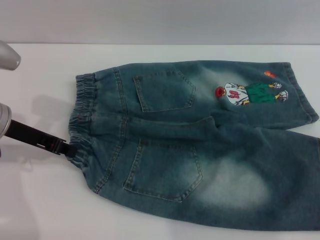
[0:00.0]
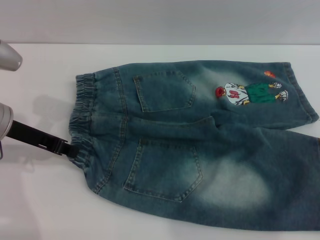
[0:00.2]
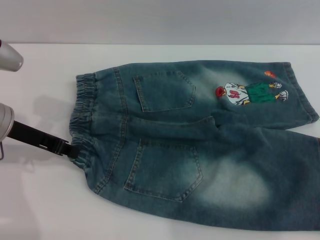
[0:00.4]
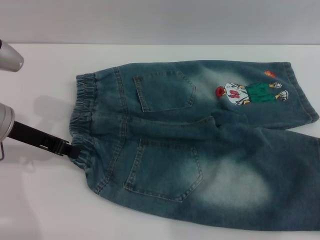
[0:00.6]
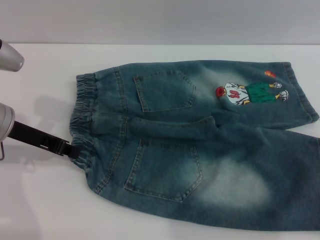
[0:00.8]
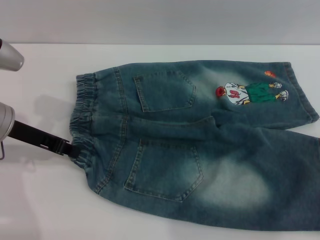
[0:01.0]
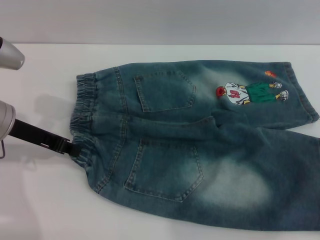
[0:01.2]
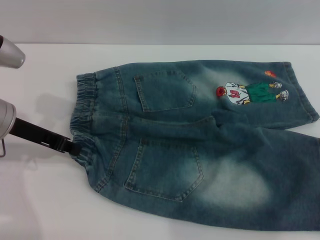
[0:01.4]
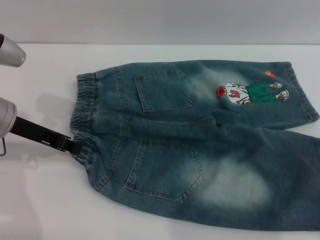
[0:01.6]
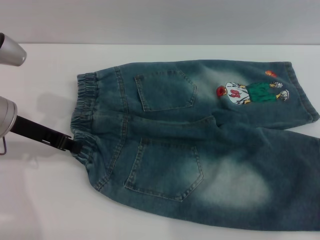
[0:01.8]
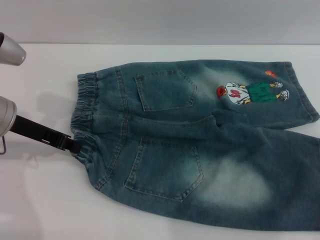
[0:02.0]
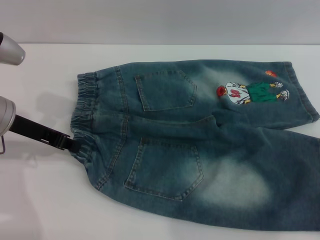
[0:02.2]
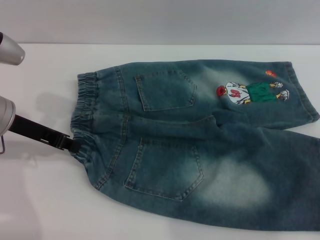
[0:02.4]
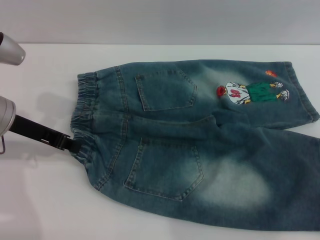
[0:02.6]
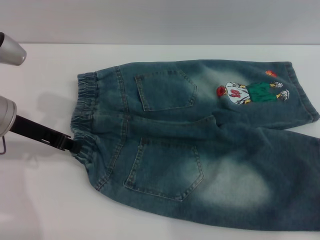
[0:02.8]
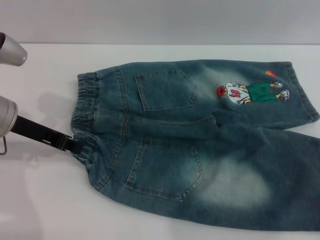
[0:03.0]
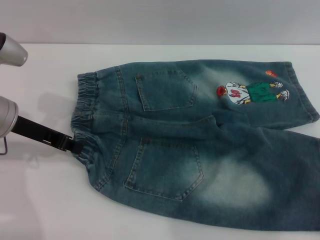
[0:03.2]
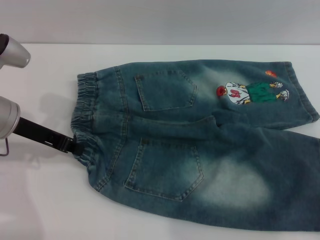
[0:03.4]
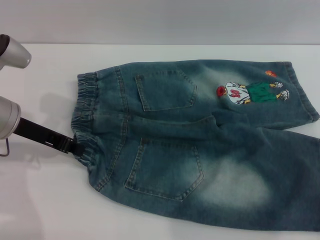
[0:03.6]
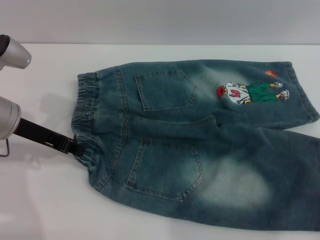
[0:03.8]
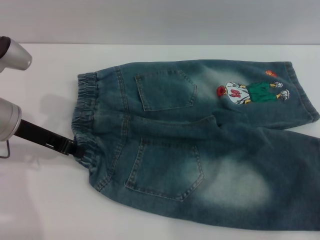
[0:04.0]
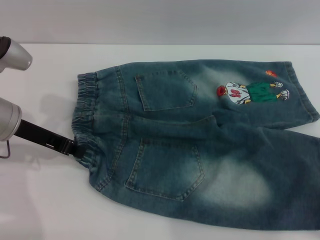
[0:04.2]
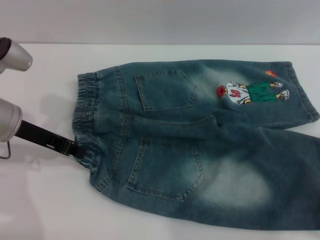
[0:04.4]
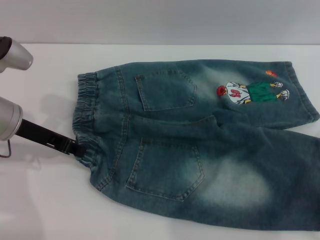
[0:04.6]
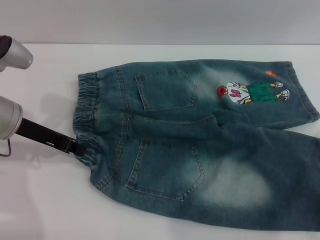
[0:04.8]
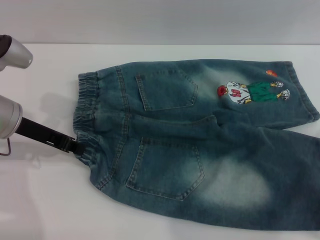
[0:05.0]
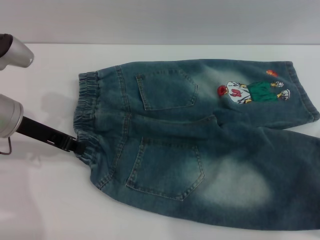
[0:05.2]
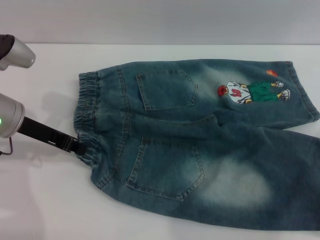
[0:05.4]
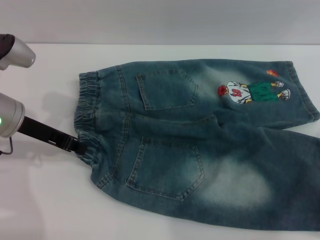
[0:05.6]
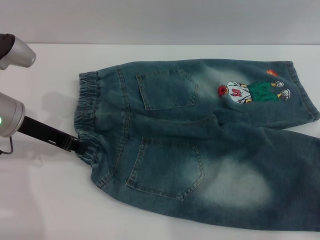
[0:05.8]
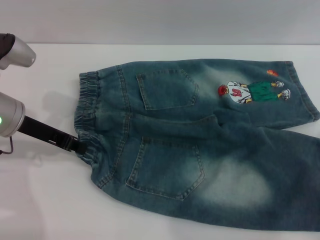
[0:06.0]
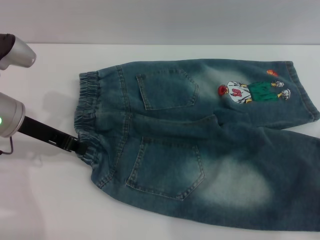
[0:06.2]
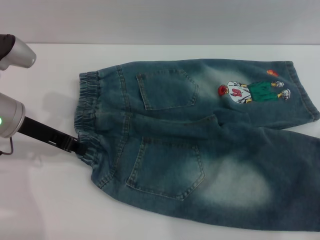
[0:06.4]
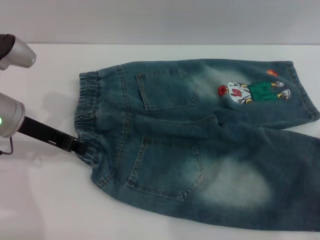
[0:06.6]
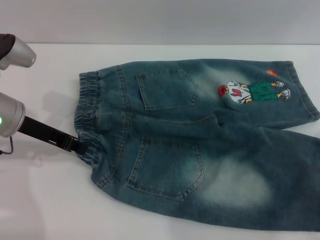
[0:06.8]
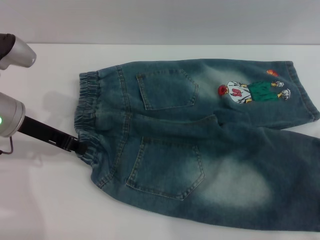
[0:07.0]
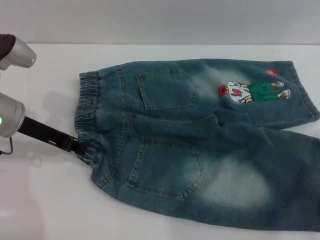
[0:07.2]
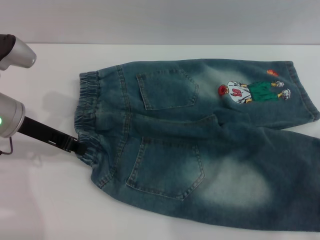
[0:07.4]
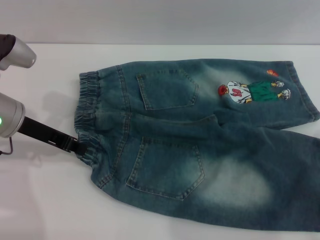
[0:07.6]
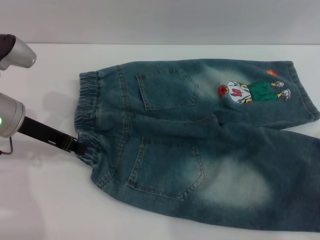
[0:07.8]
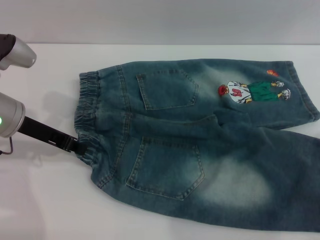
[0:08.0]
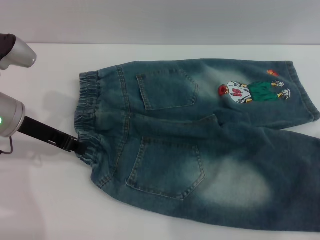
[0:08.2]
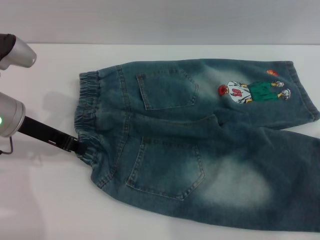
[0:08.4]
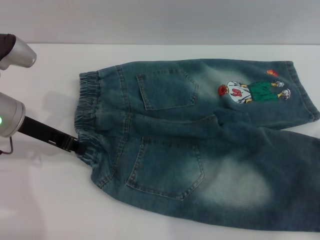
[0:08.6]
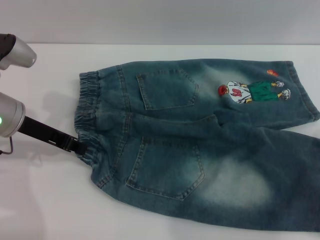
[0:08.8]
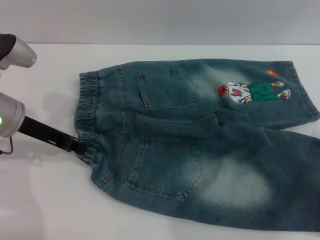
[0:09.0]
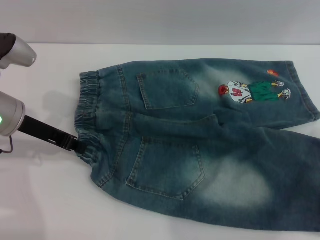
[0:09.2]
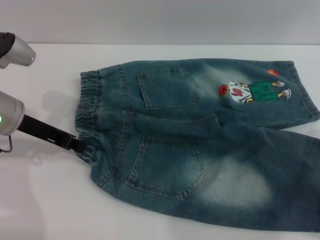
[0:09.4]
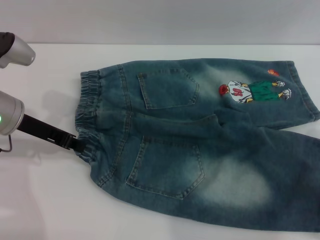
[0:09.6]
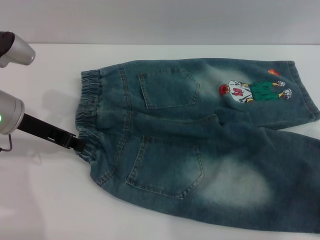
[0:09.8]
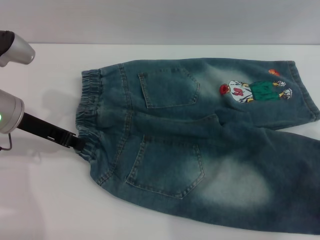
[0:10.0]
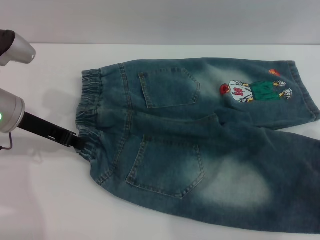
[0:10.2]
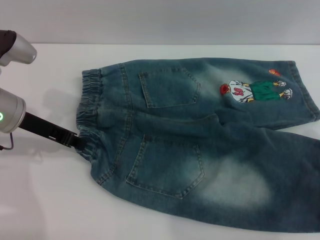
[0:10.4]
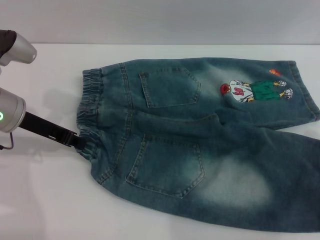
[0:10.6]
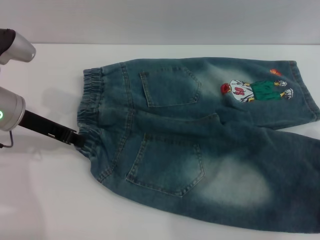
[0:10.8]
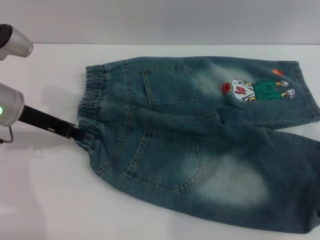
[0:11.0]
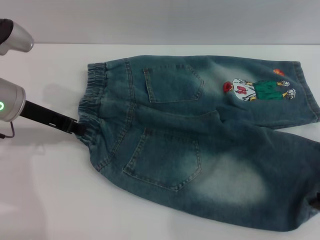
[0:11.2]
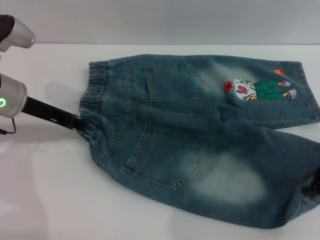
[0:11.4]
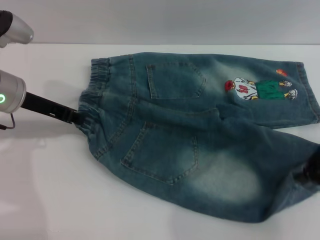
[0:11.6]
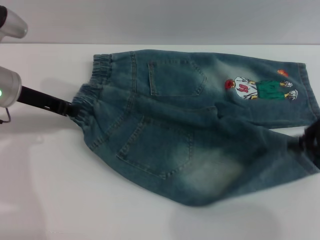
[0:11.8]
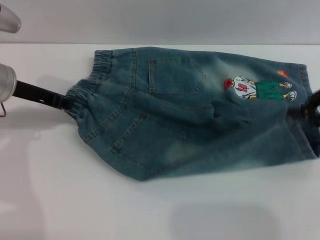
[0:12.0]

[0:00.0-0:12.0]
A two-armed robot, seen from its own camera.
0:00.0 to 0:04.4: The grippers stay close to where they were, moving slightly.
0:04.4 to 0:07.6: Both grippers stay about where they are.
0:07.6 to 0:09.0: Neither gripper changes place.
0:09.0 to 0:10.4: The right gripper closes up.
0:10.4 to 0:12.0: The right gripper goes roughly 5 cm upward.

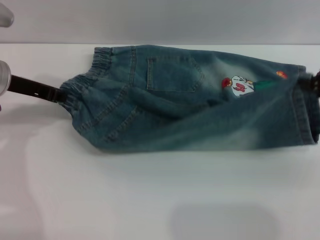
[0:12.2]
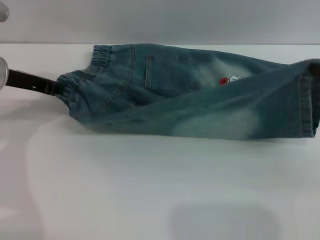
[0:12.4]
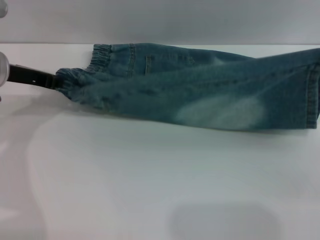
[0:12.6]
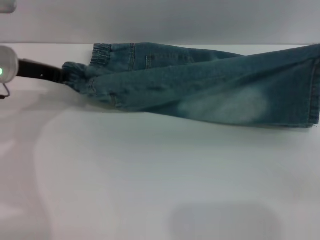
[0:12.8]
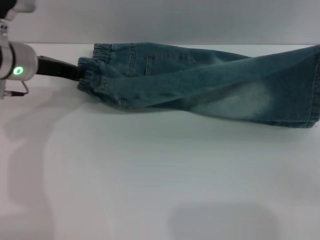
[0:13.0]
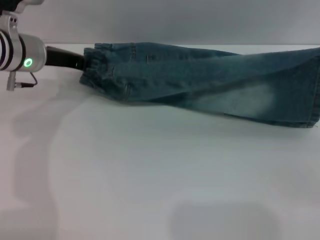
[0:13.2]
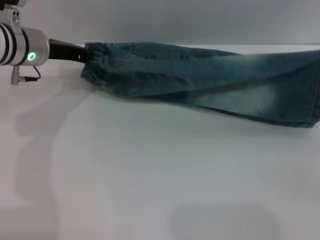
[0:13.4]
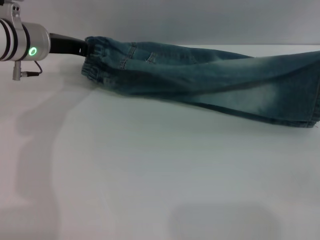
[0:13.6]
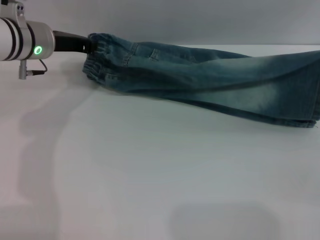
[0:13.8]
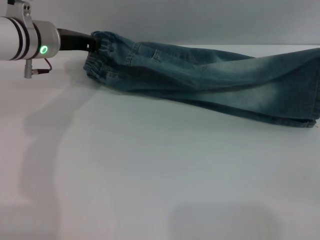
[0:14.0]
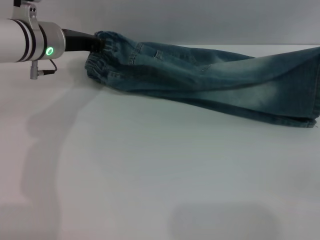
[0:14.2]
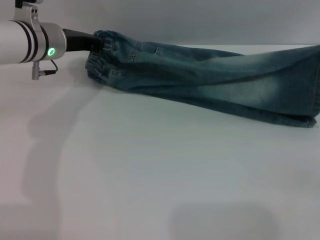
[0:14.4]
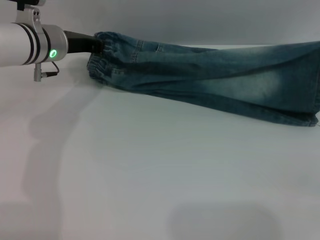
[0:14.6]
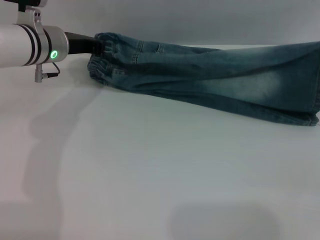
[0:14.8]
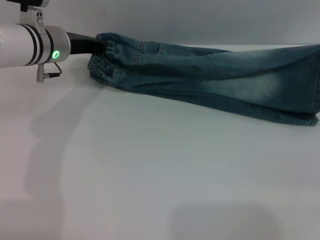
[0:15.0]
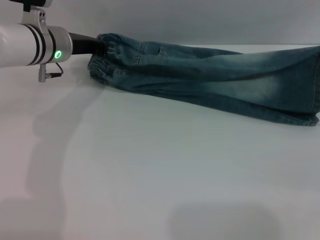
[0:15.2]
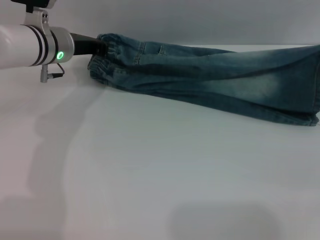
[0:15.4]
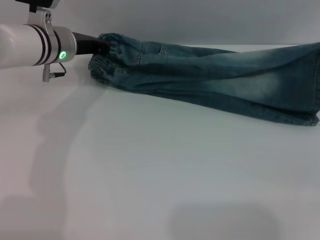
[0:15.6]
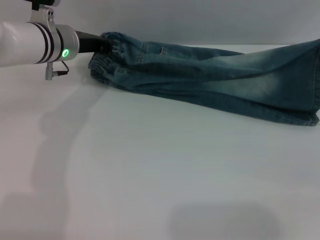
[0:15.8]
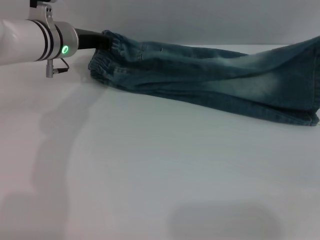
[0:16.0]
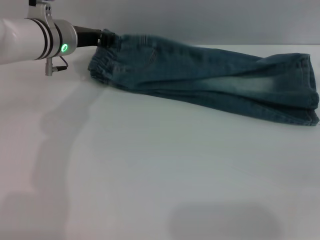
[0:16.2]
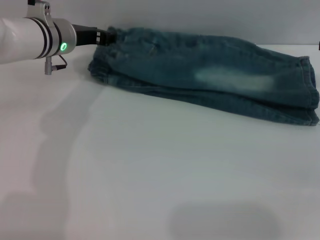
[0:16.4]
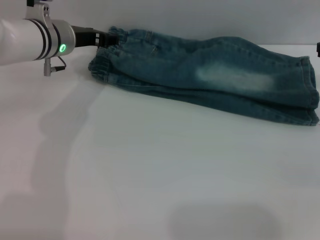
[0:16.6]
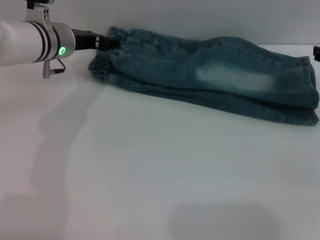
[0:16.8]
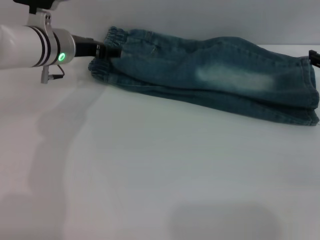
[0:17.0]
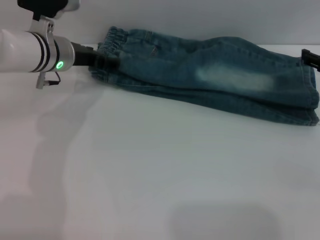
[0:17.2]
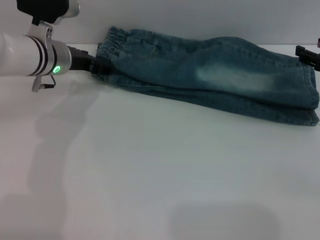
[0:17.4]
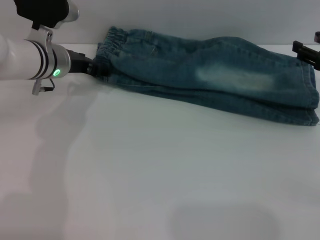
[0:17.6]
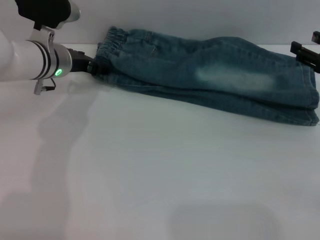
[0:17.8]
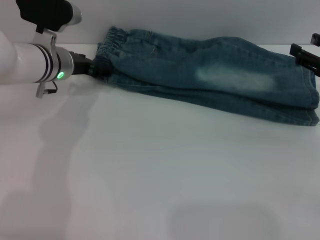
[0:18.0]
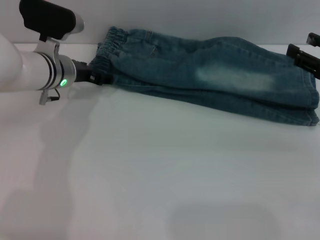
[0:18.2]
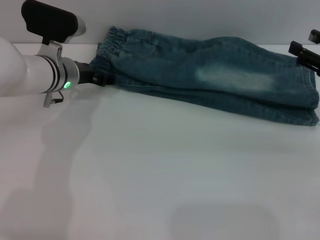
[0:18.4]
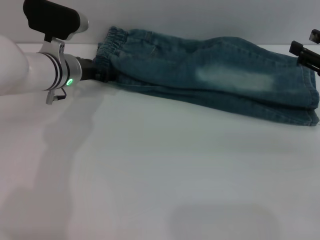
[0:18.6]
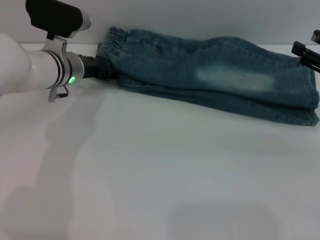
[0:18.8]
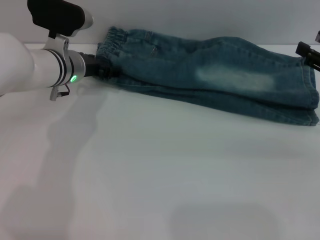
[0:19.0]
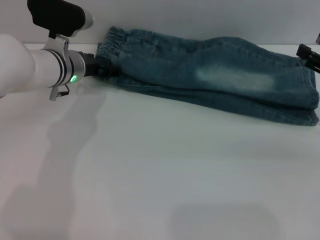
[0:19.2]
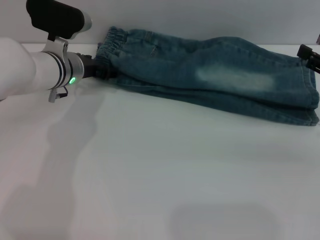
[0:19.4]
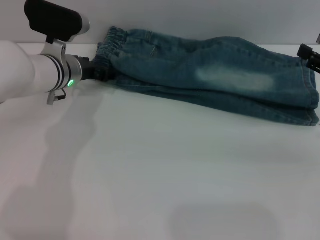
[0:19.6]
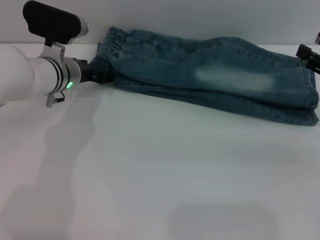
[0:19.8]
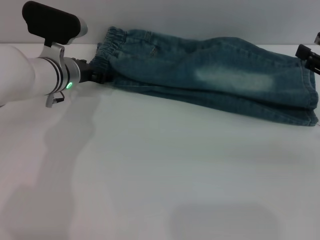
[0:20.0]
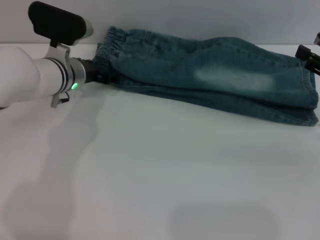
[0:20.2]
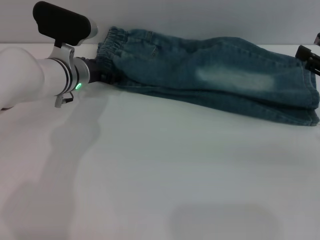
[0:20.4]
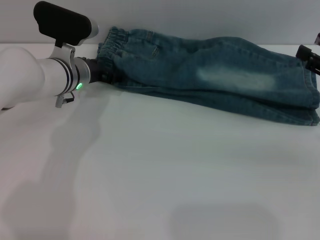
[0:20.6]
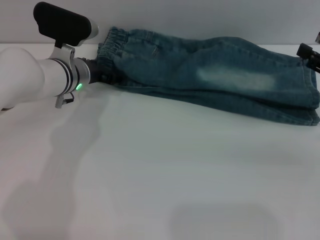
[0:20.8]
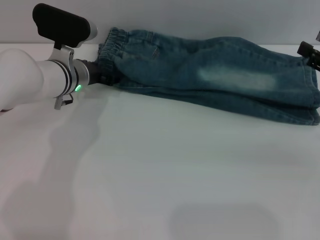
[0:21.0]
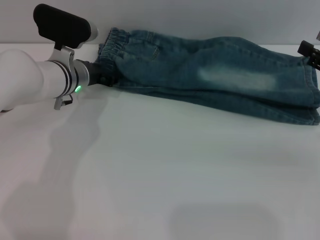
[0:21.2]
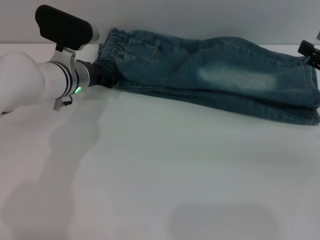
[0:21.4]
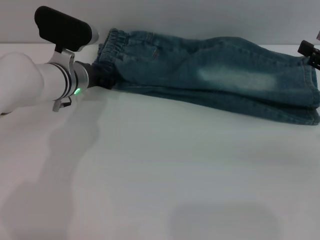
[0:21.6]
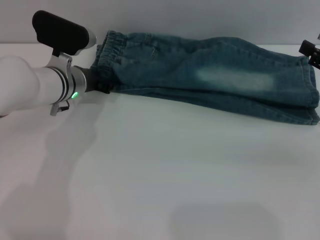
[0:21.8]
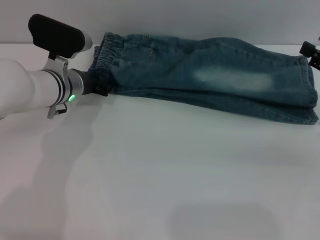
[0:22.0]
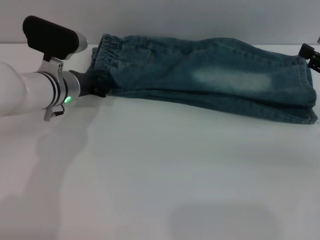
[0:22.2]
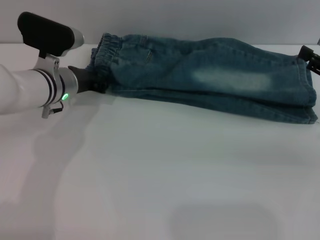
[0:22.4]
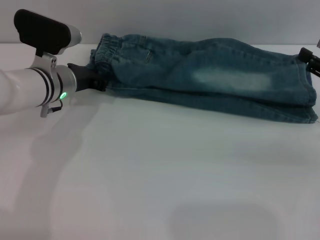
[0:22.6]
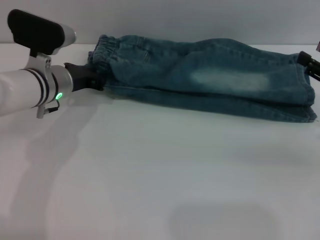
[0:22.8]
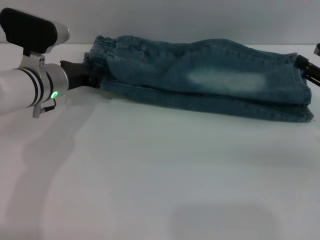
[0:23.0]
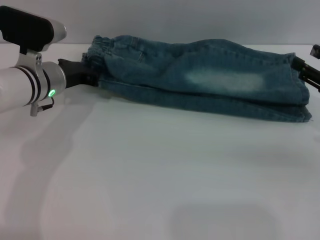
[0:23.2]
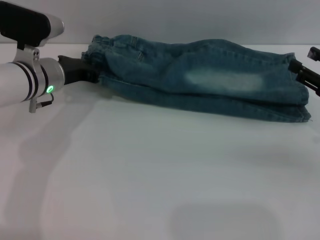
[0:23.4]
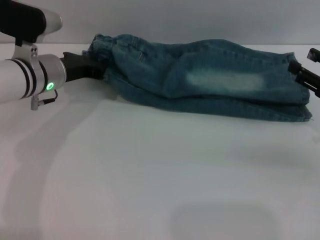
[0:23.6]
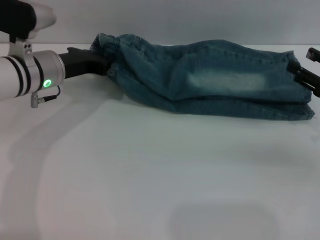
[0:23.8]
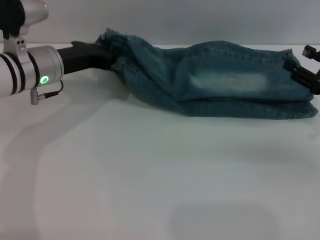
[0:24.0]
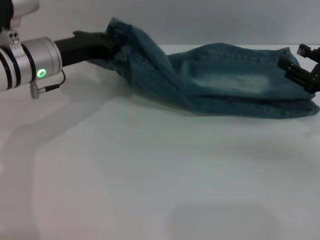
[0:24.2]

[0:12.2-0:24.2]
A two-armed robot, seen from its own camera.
Step, 0:12.2 to 0:16.8: Fold the bottom of the pants upward with both grippers.
0:12.2 to 0:13.8: The left gripper goes some 5 cm to the right, while the right gripper moves downward, about 5 cm.
0:13.8 to 0:15.2: The right gripper ends up approximately 5 cm from where it was.
0:15.2 to 0:16.6: The right gripper opens. Meanwhile the left gripper opens.
0:16.6 to 0:18.2: The left gripper opens, while the right gripper travels backward by about 5 cm.
0:18.2 to 0:21.2: The grippers make only small movements.
0:21.2 to 0:22.6: The left gripper closes.
0:22.6 to 0:24.2: The left gripper travels upward by approximately 5 cm.
